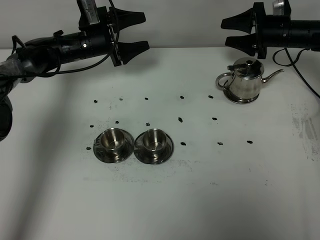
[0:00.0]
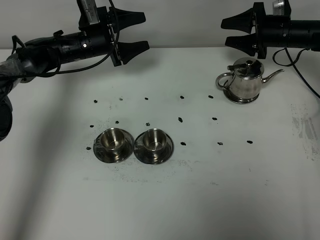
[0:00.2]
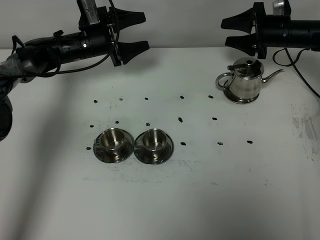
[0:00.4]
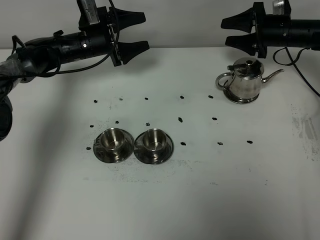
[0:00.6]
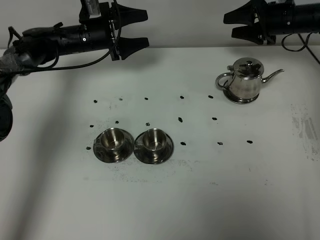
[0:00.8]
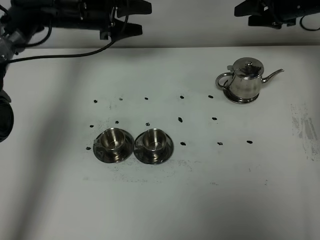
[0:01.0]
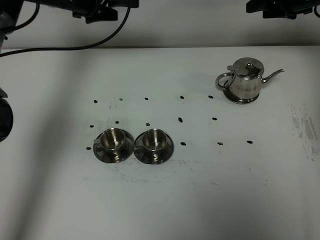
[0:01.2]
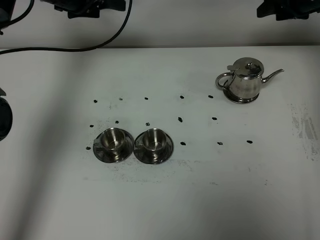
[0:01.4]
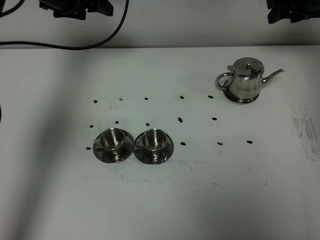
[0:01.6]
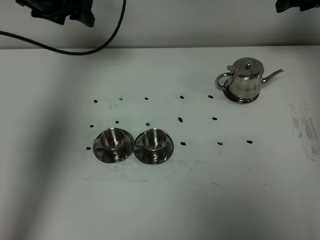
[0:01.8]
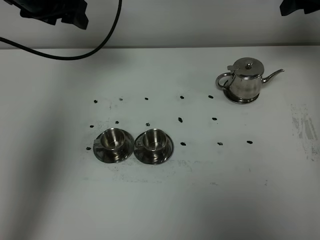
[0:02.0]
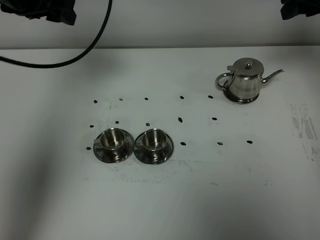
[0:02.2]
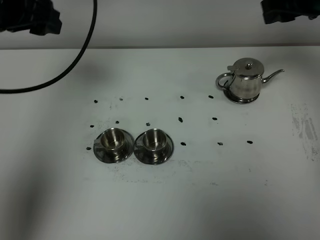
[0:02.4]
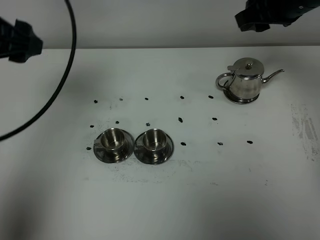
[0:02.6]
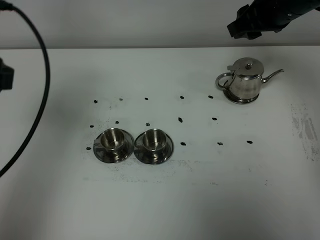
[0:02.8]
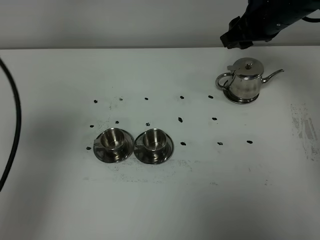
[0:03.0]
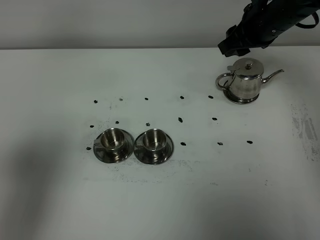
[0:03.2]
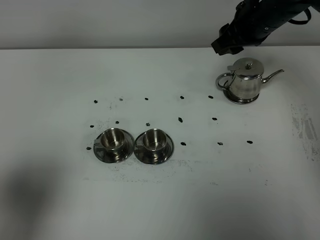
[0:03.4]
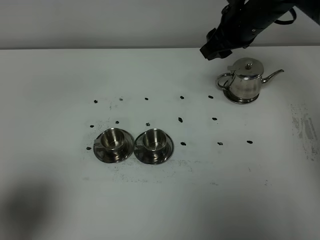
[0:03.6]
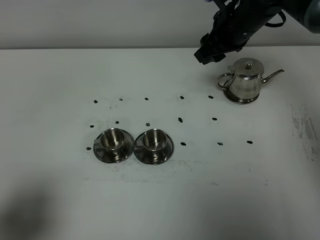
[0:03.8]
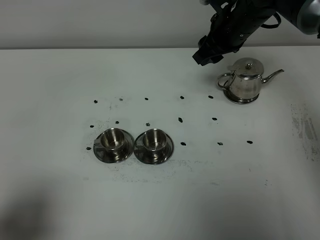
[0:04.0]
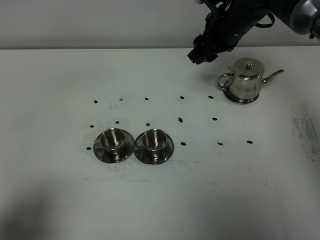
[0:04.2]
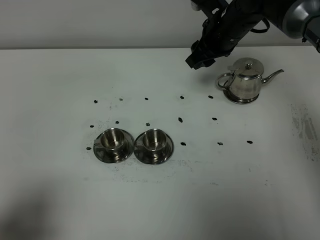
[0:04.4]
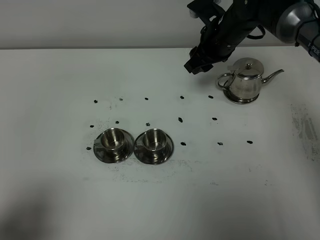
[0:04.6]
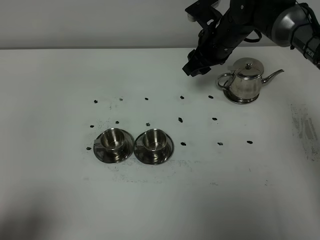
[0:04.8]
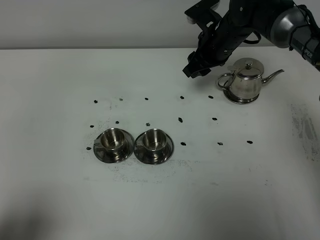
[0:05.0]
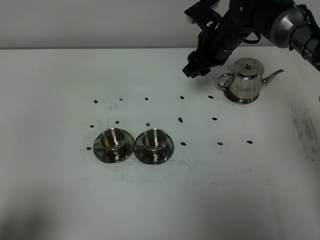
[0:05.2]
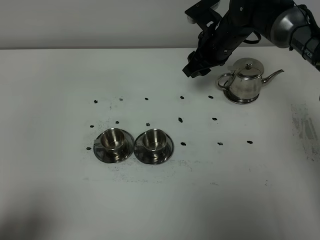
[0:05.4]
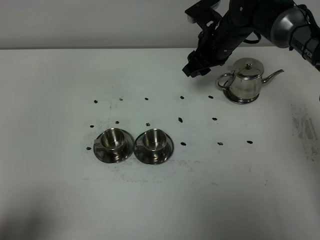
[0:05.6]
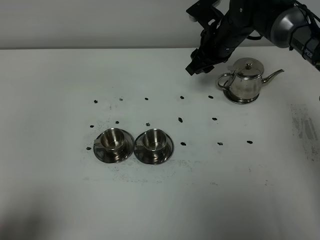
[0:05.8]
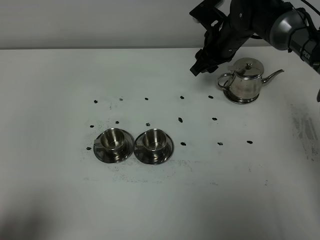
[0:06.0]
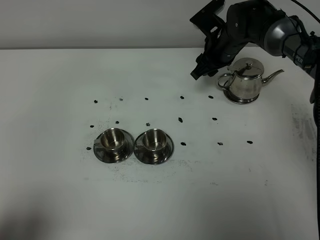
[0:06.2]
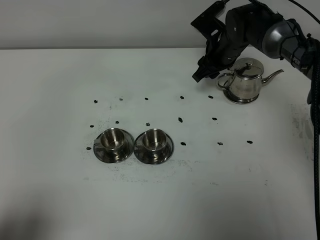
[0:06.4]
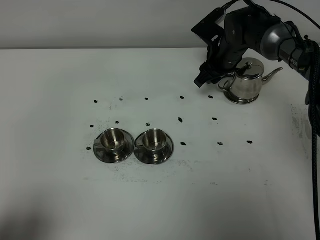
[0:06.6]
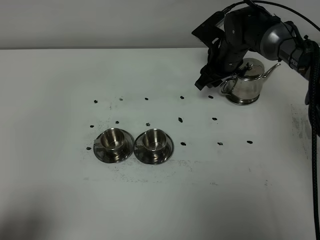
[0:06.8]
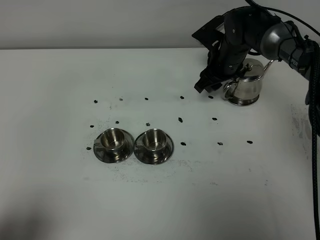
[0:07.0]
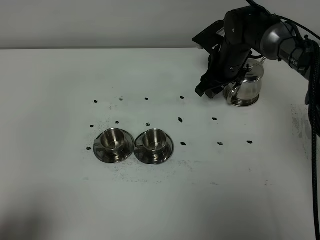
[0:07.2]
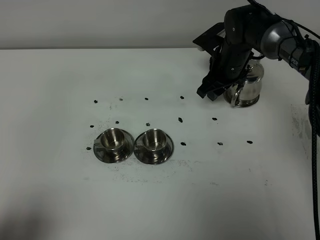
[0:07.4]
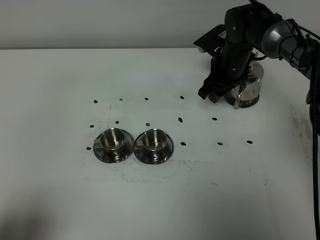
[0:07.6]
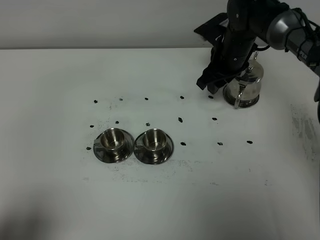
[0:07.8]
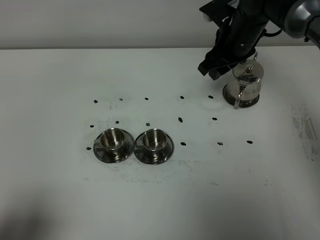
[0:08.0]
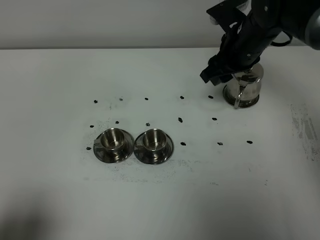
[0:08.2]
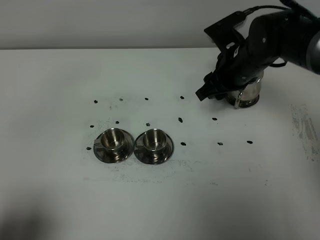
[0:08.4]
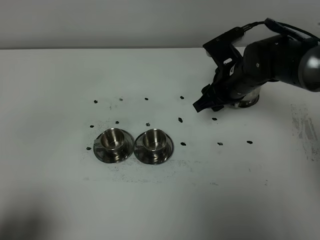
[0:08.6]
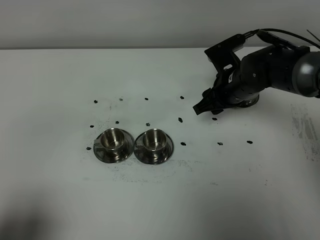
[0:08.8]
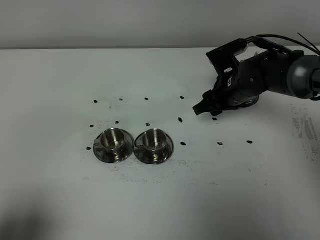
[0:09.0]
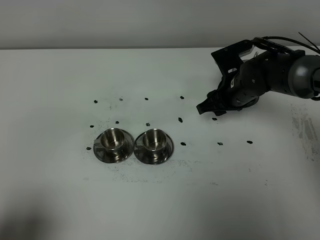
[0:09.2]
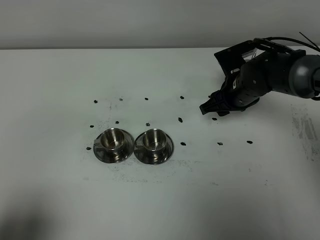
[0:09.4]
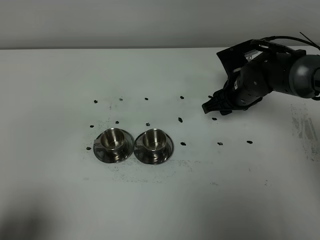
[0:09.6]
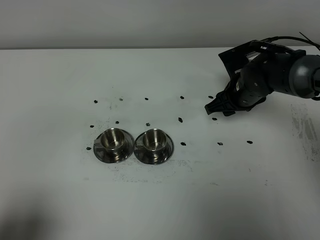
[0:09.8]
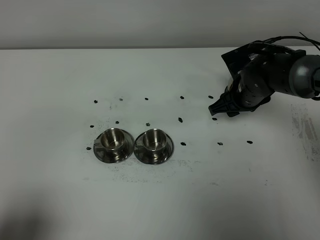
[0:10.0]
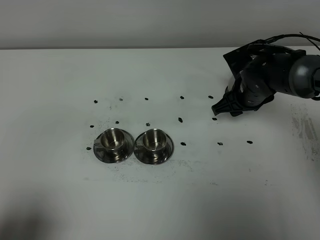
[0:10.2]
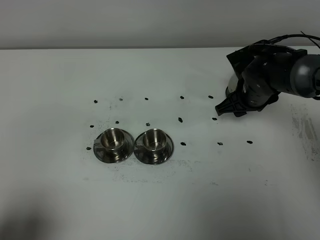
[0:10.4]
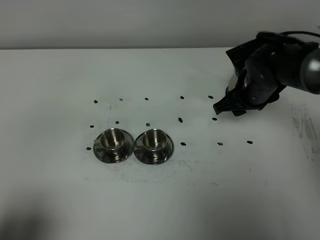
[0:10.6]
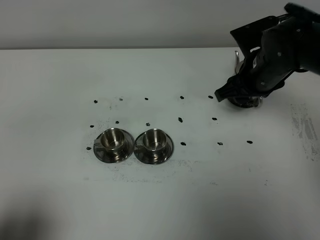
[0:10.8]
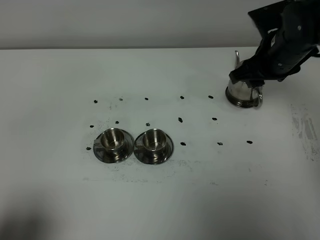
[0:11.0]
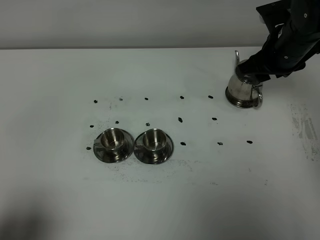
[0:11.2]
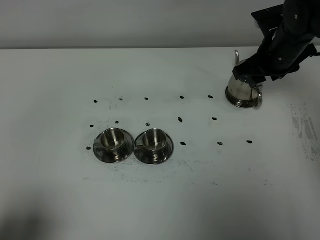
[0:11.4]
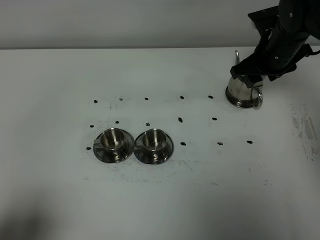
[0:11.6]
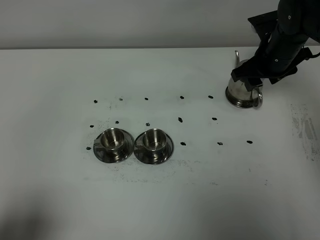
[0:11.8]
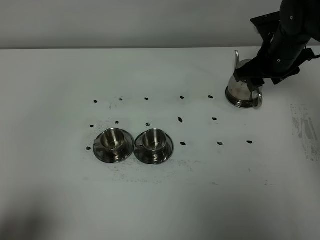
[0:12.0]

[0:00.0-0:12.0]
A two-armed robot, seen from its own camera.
Task of the whole recording: grasp the stainless steel teapot and pour the tea into the two stainless steel teacups one by one, put the stainless steel teapot back in its original place.
0:00.0 to 0:01.6: The two grippers go some 15 cm upward.
0:01.6 to 0:03.0: The right gripper goes about 15 cm to the left and backward, while the left gripper goes about 35 cm backward.
0:03.0 to 0:04.4: The left gripper travels backward and downward by approximately 15 cm; the right gripper moves to the left and downward, some 10 cm.
0:04.4 to 0:06.0: The right gripper shifts by some 5 cm.
0:06.0 to 0:07.6: The grippers move only a little.
0:07.6 to 0:09.0: The right gripper goes about 10 cm backward, and travels upward and back again, roughly 10 cm each way.
0:09.0 to 0:10.4: There are only small adjustments of the grippers.
0:10.4 to 0:12.0: The right gripper heads upward, covering roughly 5 cm.

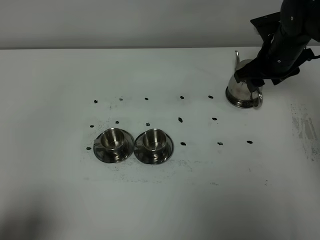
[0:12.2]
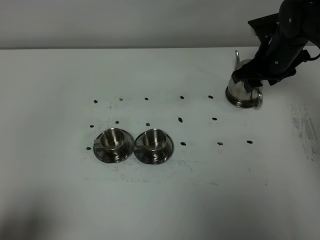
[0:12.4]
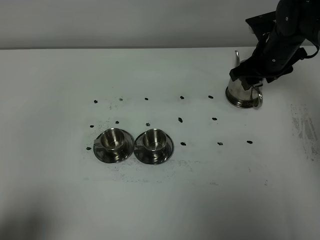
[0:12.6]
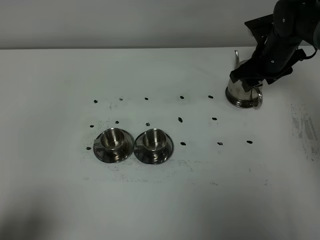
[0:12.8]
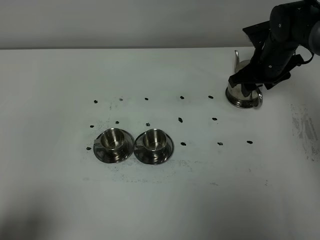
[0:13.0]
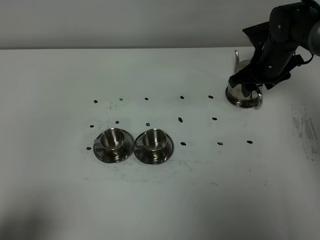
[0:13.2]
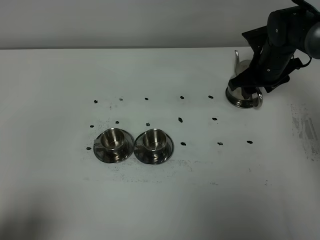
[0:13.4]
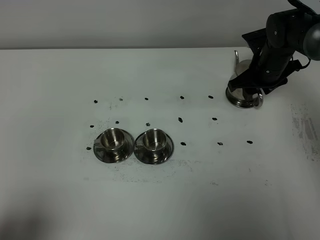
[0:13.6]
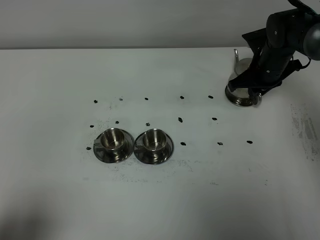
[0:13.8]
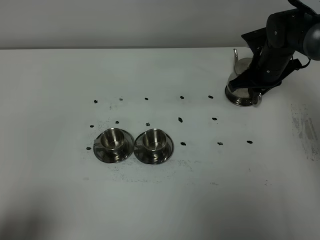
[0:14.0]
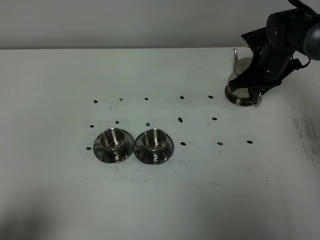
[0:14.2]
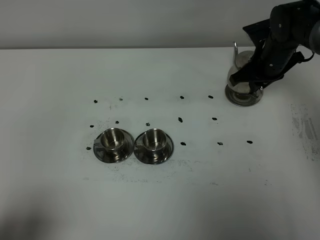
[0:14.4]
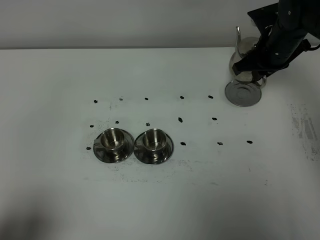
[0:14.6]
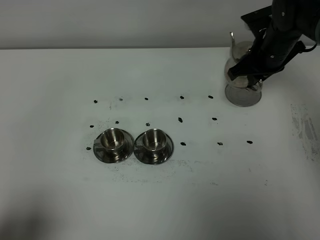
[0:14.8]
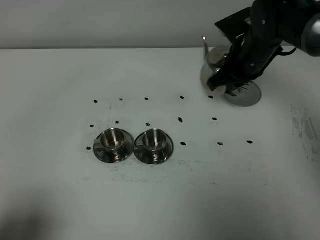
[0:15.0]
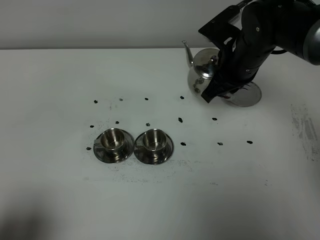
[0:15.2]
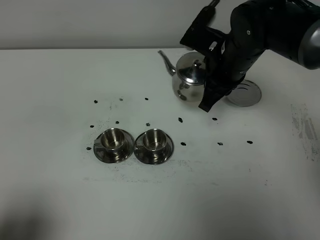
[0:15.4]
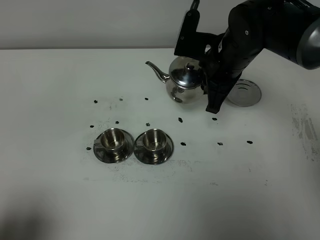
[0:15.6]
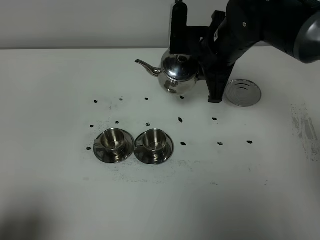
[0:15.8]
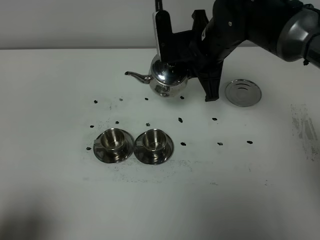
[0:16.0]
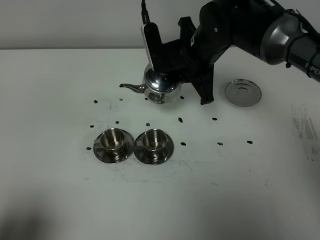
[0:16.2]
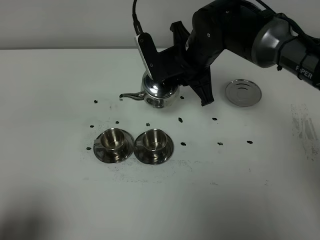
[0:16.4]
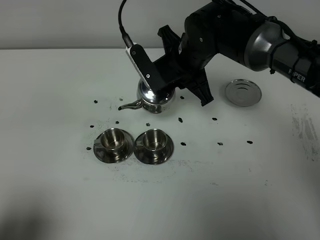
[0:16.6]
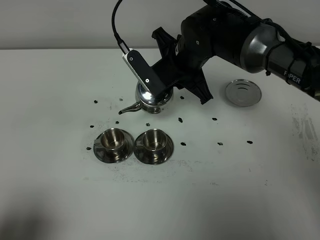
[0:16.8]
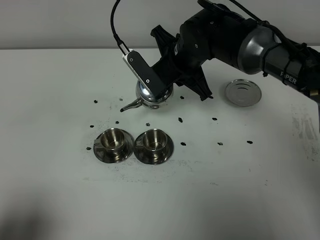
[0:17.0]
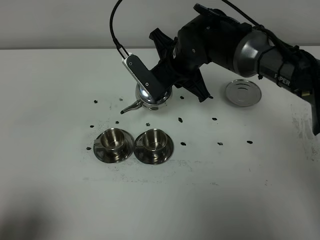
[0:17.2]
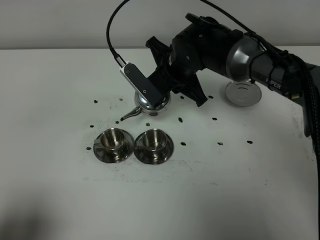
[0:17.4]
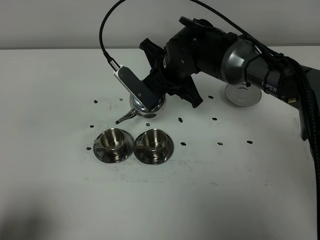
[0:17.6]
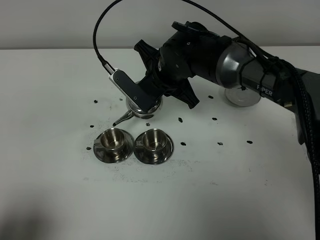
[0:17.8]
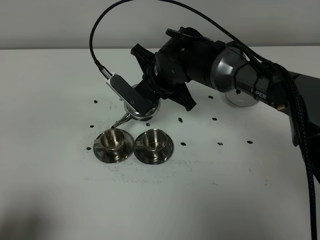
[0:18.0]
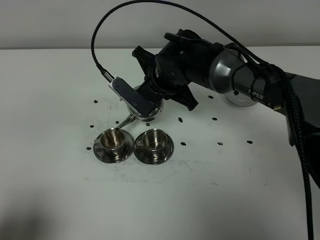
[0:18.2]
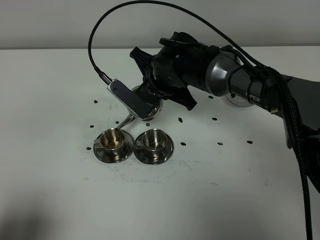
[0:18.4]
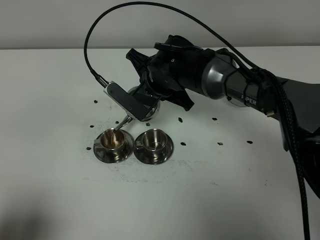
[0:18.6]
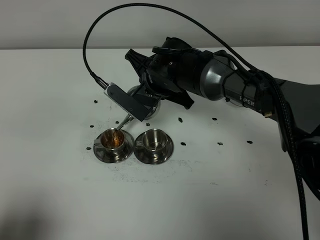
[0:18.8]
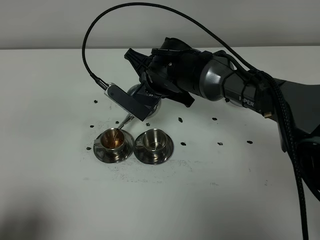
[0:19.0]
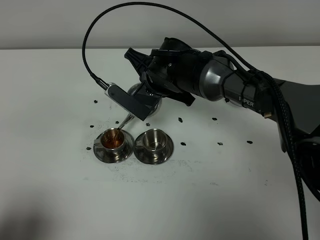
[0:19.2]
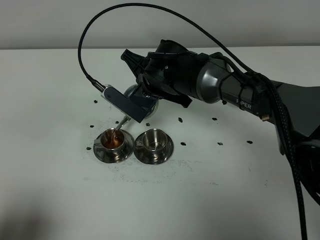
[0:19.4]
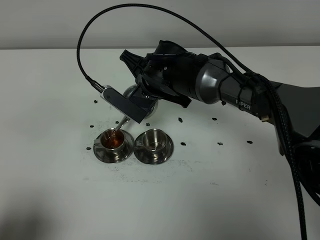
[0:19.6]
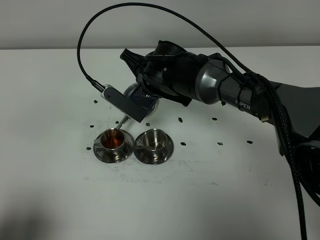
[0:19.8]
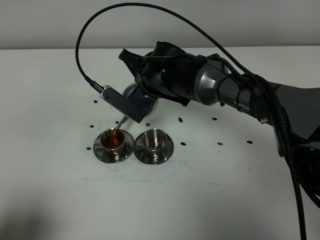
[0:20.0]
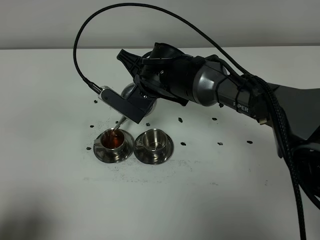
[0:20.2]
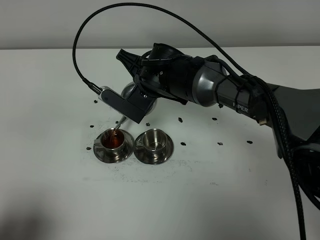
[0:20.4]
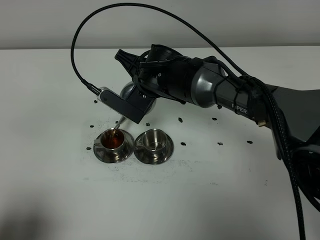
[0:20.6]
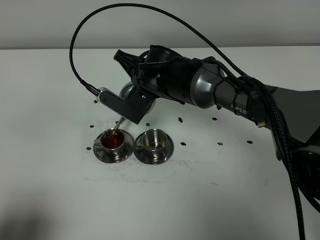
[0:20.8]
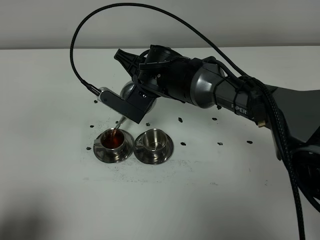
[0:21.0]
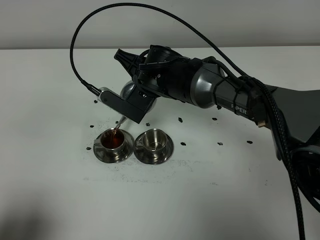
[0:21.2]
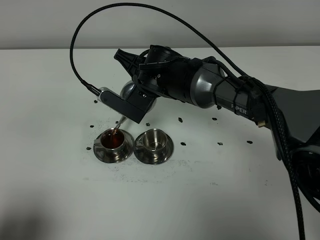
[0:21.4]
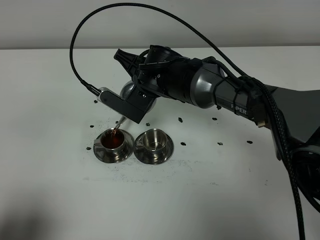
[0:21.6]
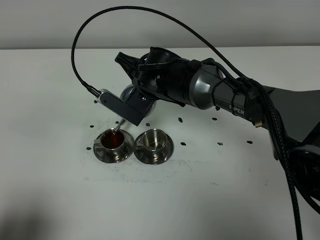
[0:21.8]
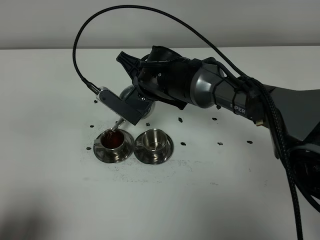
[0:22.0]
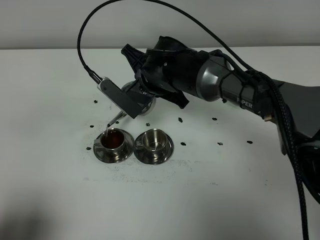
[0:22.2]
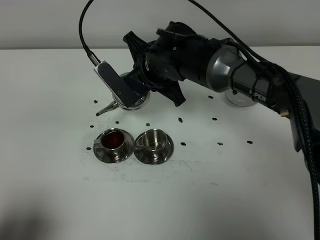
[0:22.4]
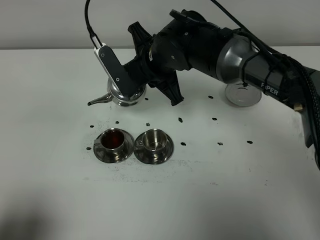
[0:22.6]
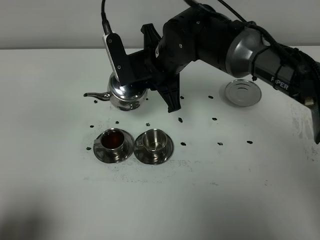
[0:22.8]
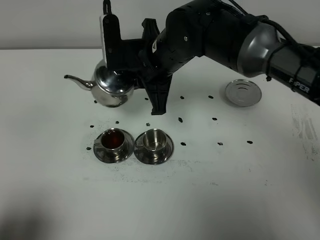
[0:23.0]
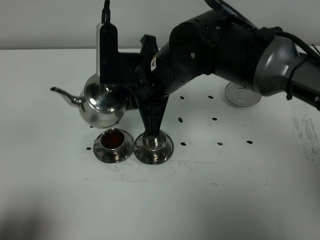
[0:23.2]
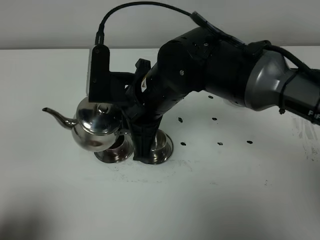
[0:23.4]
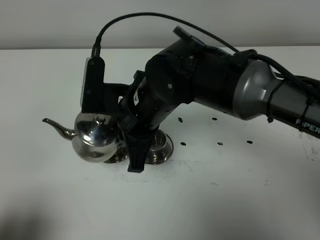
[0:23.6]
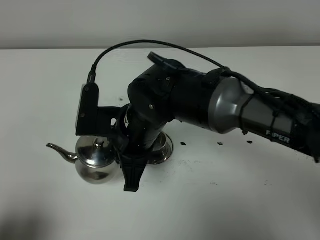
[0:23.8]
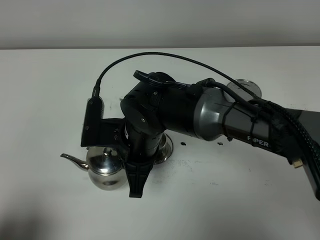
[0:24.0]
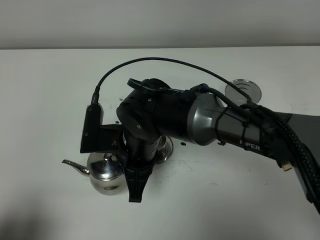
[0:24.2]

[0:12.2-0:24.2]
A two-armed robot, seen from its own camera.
Task of the whole recording: grasp the stainless steel teapot and pour the tea into the two stainless steel teacups one by one, put the stainless steel teapot back in its original place.
Step, 0:12.2 to 0:14.4: Pick up the teapot with the right gripper.
0:12.2 to 0:13.8: The right gripper moves some 5 cm, and closes its fingers.
0:13.8 to 0:15.2: The right gripper shifts about 15 cm upward, backward and to the left.
0:15.2 to 0:16.6: The right gripper shifts roughly 10 cm to the left.
0:16.6 to 0:18.2: The right gripper ends up approximately 5 cm from where it was.
0:18.2 to 0:21.2: The grippers move only a little.
0:22.6 to 0:24.2: The right gripper moves backward and downward, approximately 15 cm.
